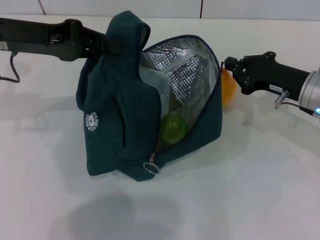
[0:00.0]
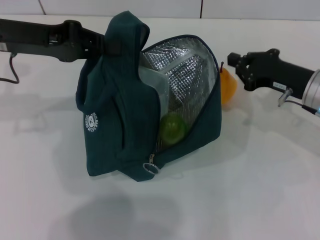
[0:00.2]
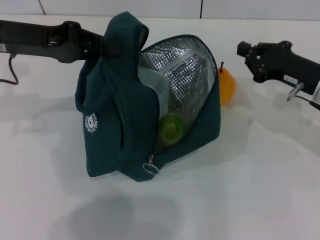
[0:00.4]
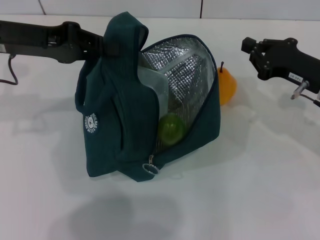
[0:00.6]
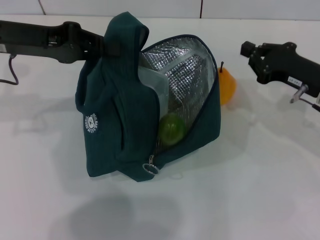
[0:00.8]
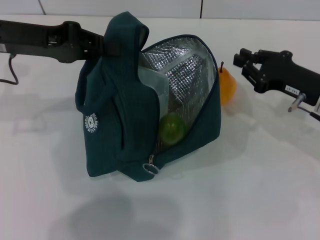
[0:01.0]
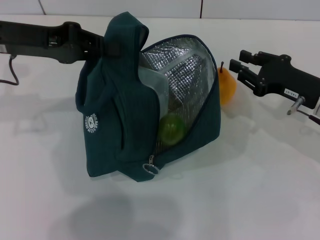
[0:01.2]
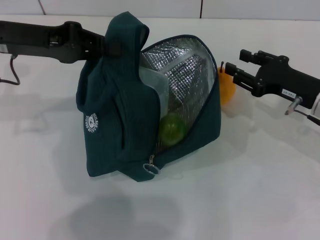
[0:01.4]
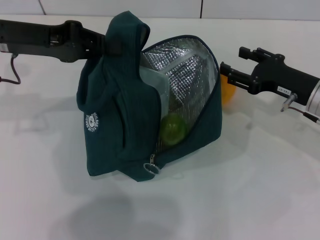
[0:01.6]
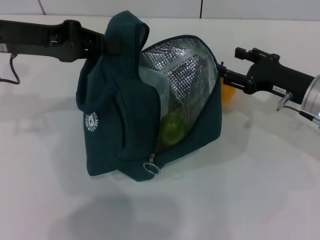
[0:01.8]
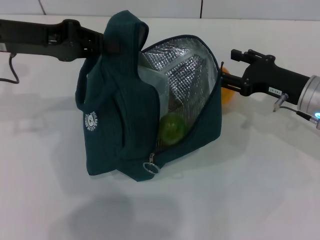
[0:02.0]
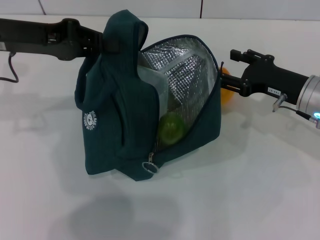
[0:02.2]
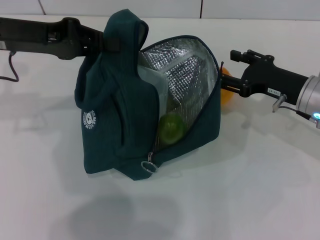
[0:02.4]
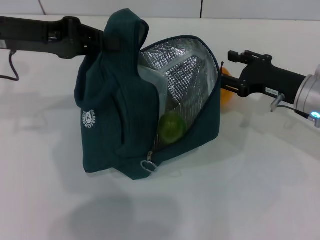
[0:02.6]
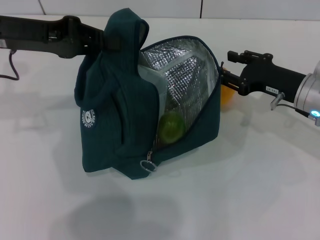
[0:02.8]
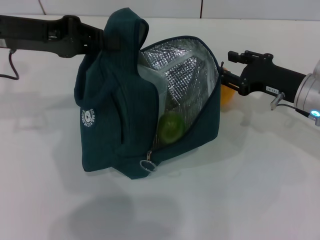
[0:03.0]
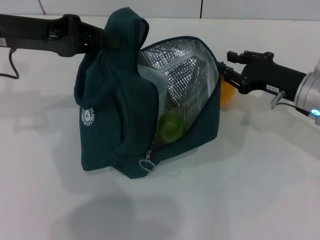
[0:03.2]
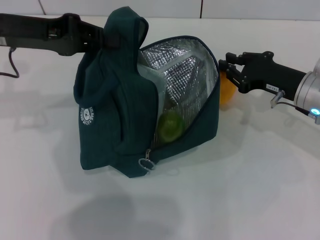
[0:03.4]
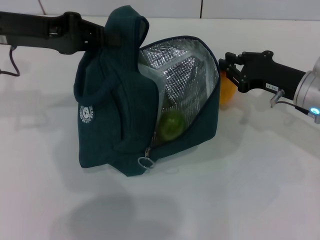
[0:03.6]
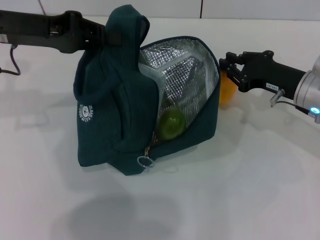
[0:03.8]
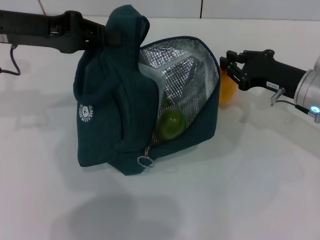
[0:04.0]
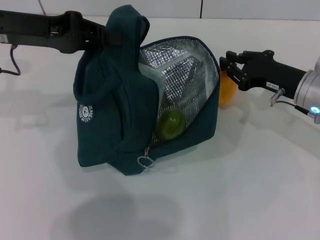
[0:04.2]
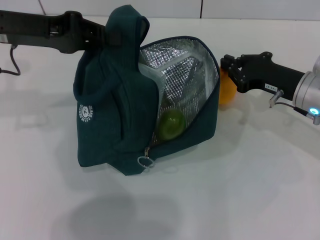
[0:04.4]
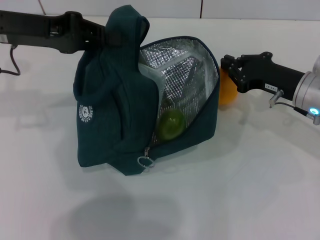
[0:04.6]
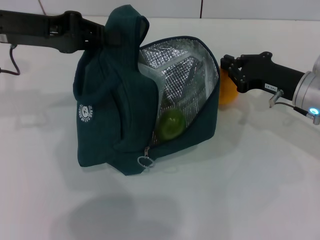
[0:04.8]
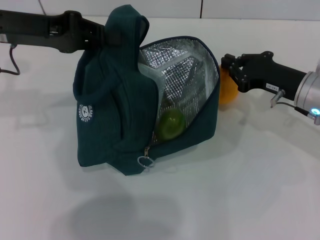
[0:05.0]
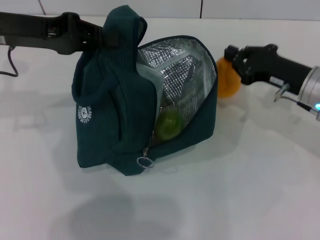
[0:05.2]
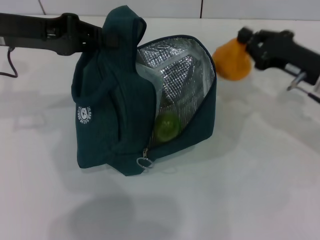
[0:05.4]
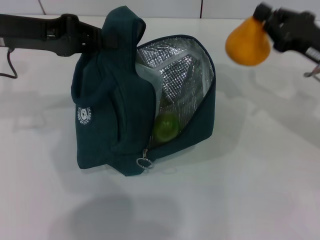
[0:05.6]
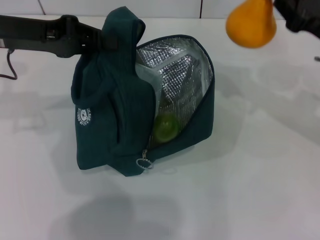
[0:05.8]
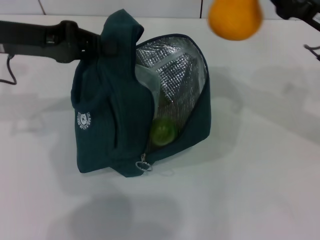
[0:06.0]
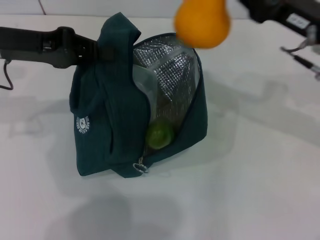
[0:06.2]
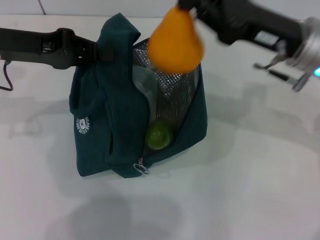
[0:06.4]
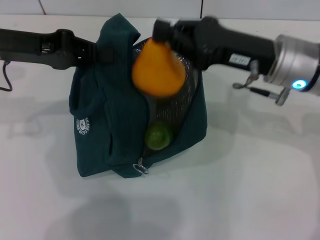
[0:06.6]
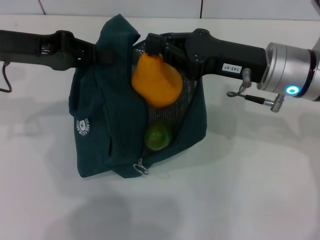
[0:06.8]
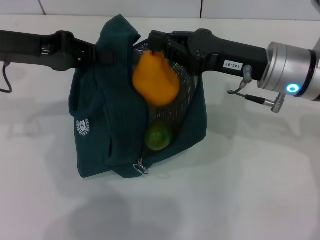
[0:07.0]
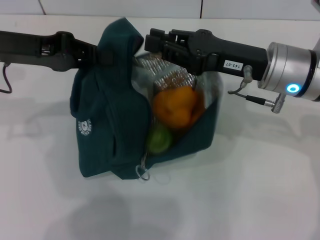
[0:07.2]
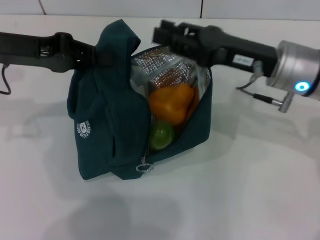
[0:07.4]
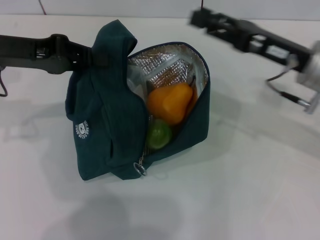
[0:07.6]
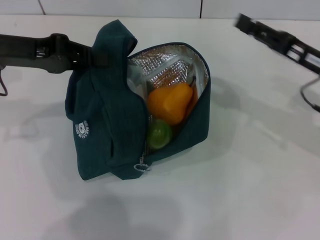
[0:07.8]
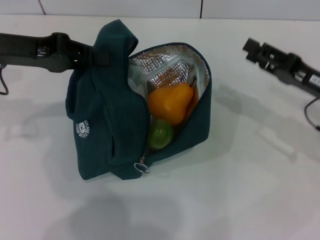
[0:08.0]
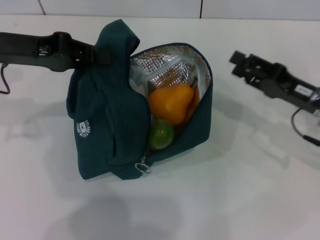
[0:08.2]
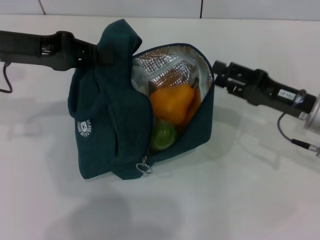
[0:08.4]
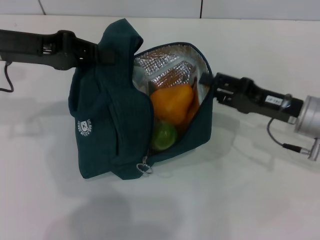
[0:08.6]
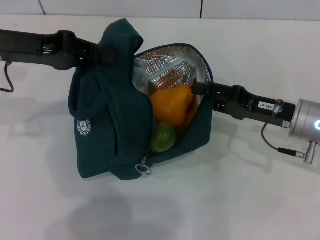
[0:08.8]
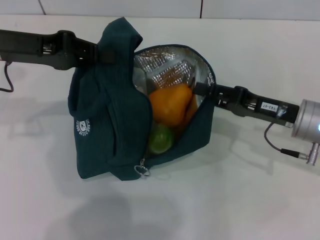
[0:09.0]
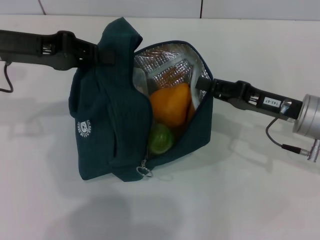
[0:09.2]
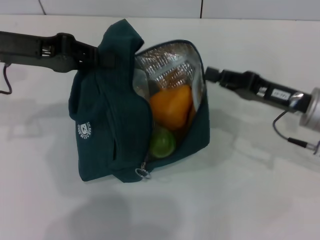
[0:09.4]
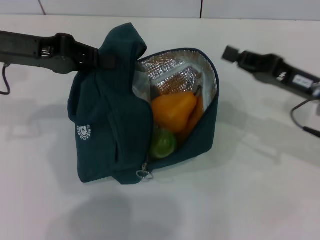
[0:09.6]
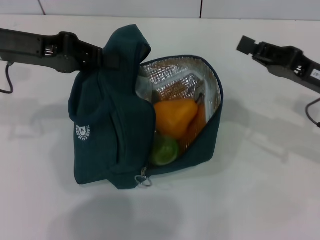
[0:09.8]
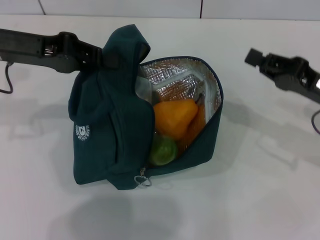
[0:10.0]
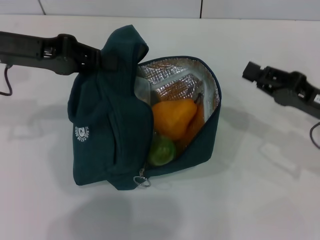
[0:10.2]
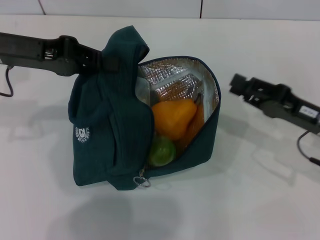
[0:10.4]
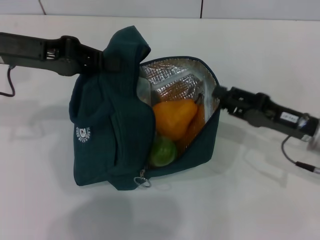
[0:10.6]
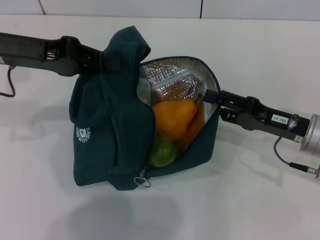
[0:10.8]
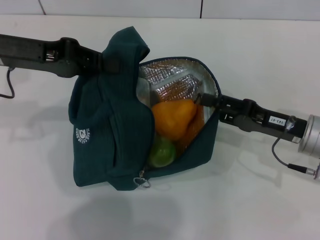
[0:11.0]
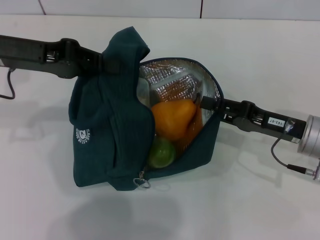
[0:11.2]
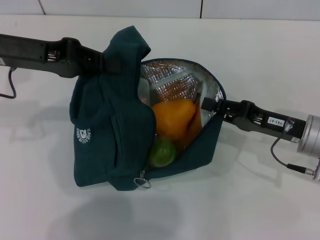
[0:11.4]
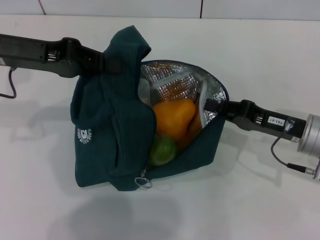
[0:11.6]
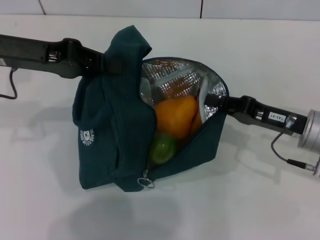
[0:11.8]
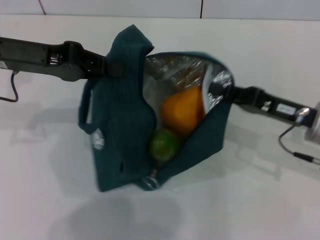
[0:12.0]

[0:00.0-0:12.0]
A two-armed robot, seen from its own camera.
Step, 0:00.0 to 0:04.8: Grab the pear with your right hand.
0:00.0 to 0:01.6: The right gripper opens.
0:01.6 to 0:03.0: There are only small adjustments of the grippers.
0:03.0 to 0:04.4: The right gripper closes.
0:04.4 to 0:06.0: The right gripper travels upward by approximately 10 cm.
0:06.0 to 0:07.6: The right gripper opens its fingers.
0:07.6 to 0:09.0: The right gripper shifts about 5 cm downward.
0:09.0 to 0:10.4: The right gripper closes up.
0:10.4 to 0:12.0: The right gripper opens, then closes once more.

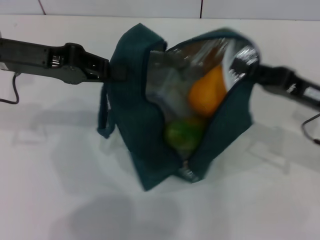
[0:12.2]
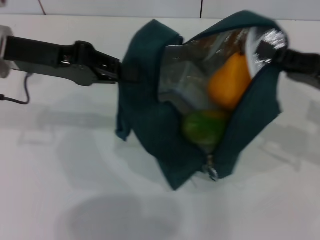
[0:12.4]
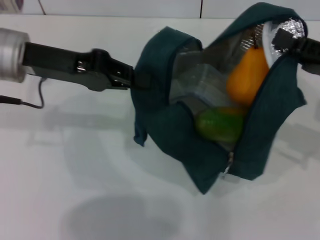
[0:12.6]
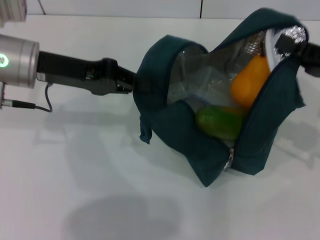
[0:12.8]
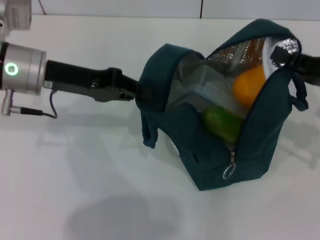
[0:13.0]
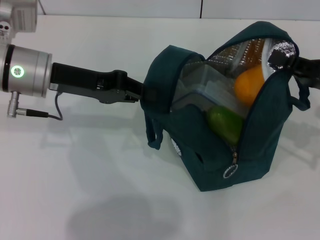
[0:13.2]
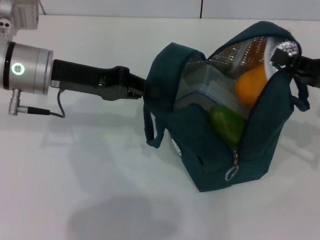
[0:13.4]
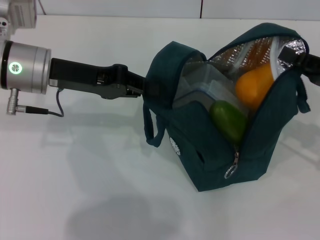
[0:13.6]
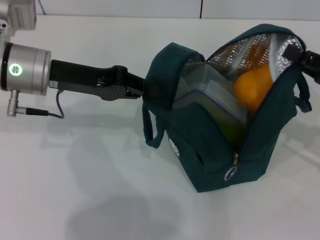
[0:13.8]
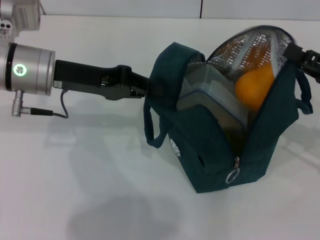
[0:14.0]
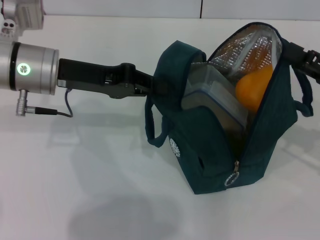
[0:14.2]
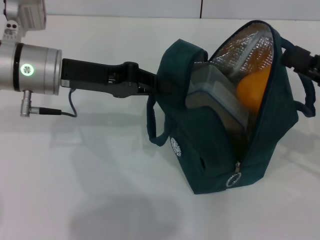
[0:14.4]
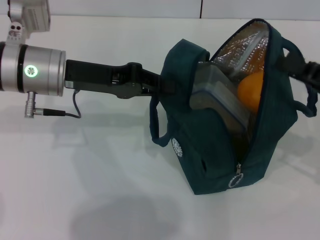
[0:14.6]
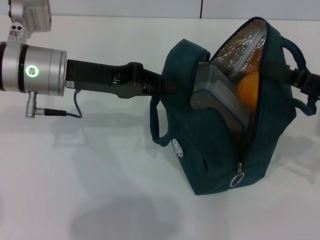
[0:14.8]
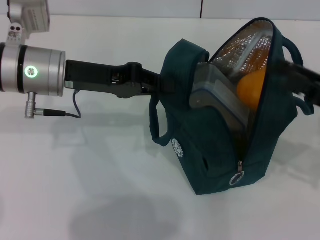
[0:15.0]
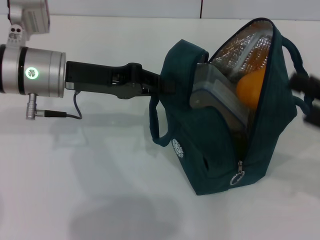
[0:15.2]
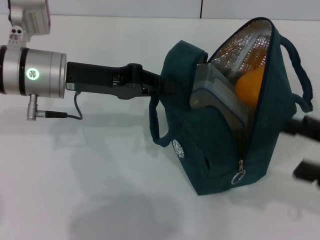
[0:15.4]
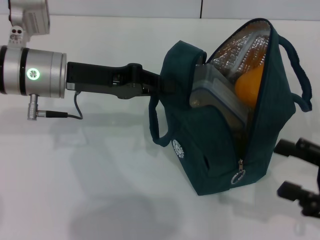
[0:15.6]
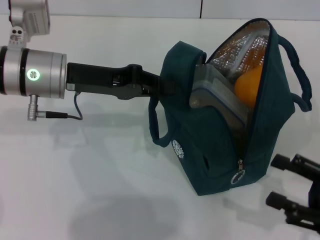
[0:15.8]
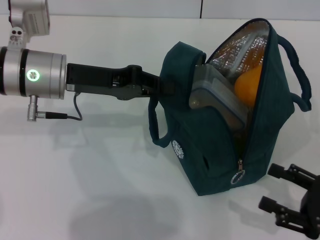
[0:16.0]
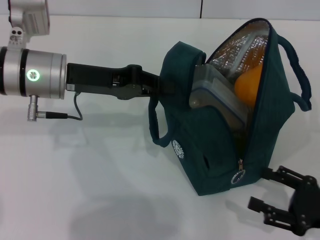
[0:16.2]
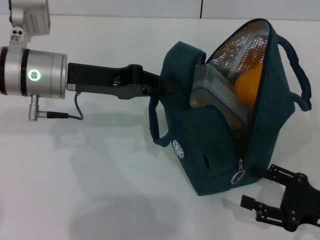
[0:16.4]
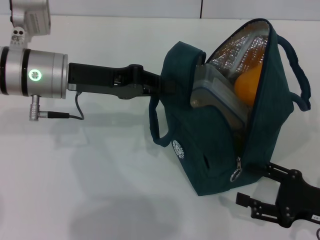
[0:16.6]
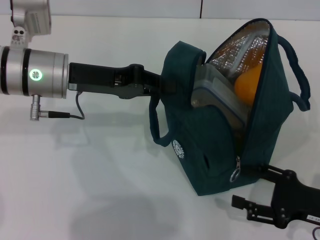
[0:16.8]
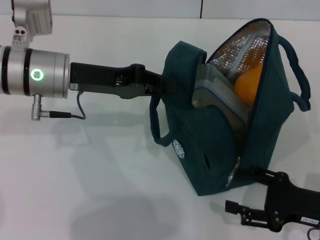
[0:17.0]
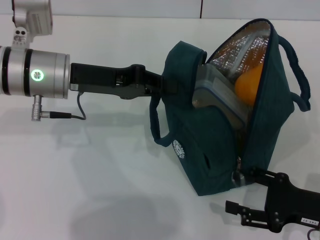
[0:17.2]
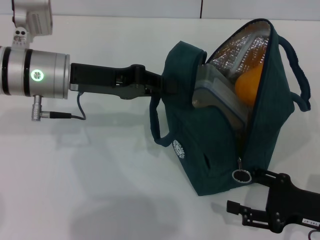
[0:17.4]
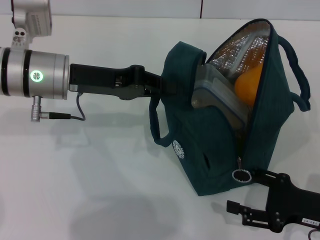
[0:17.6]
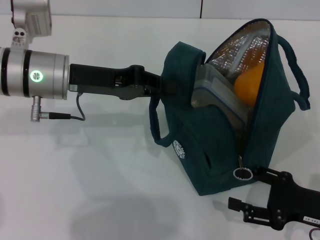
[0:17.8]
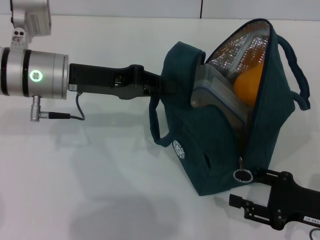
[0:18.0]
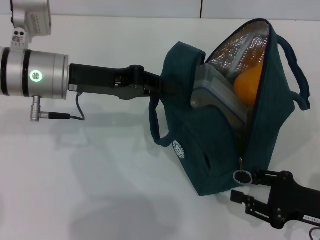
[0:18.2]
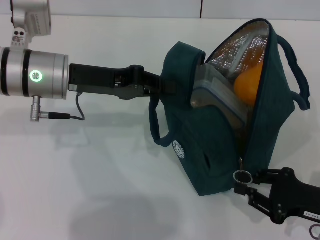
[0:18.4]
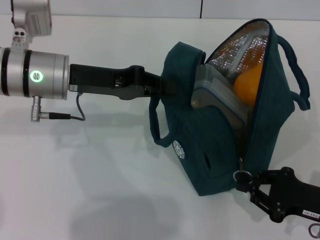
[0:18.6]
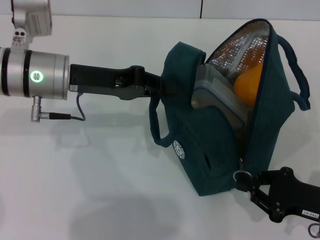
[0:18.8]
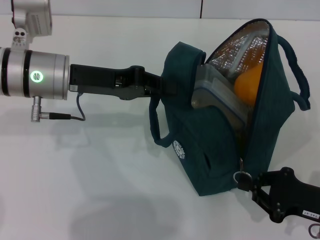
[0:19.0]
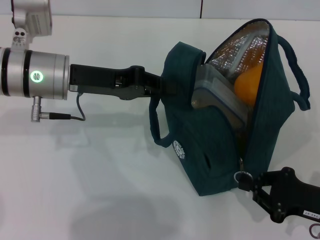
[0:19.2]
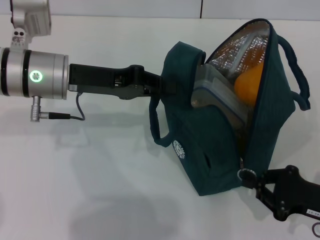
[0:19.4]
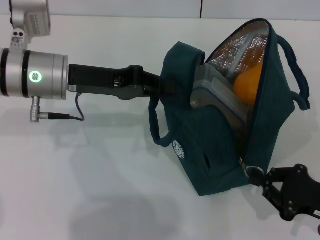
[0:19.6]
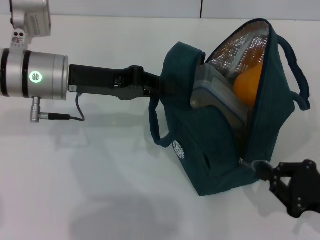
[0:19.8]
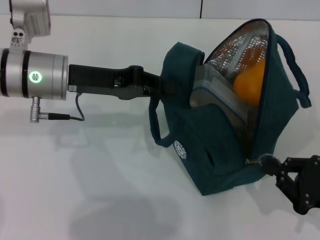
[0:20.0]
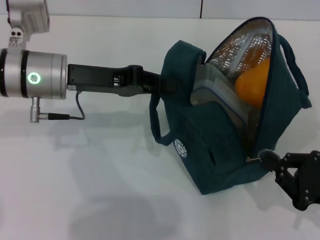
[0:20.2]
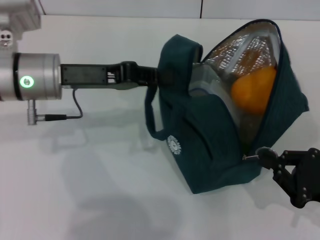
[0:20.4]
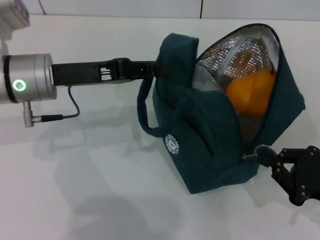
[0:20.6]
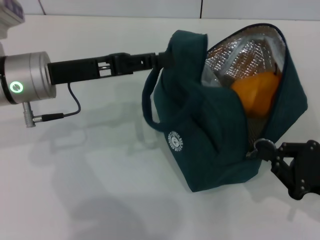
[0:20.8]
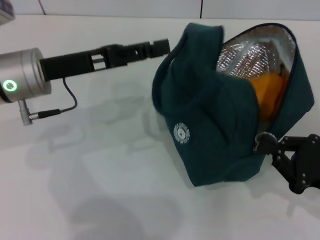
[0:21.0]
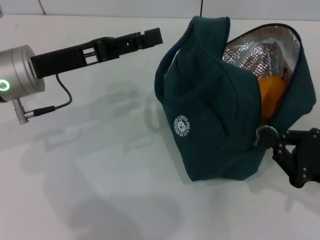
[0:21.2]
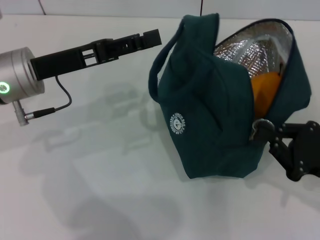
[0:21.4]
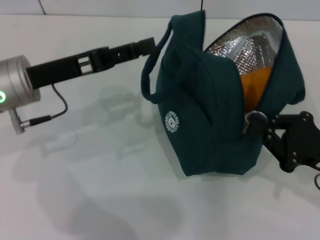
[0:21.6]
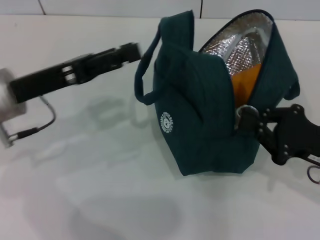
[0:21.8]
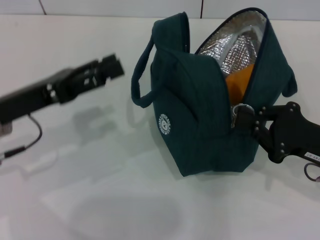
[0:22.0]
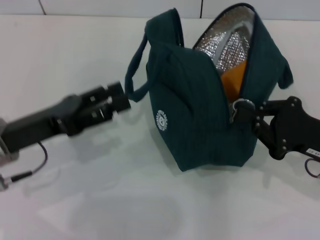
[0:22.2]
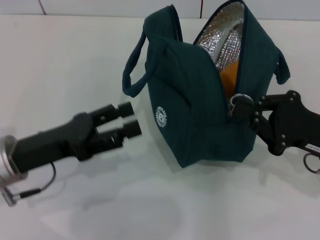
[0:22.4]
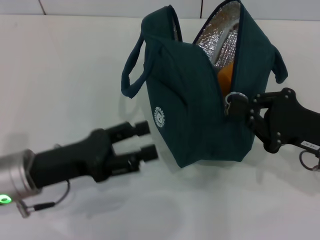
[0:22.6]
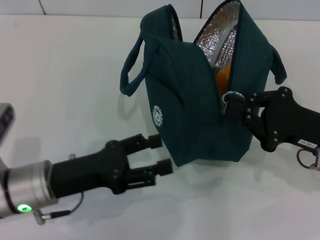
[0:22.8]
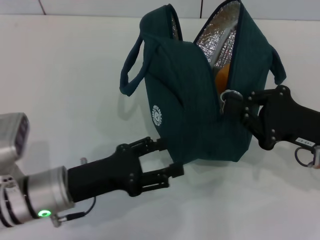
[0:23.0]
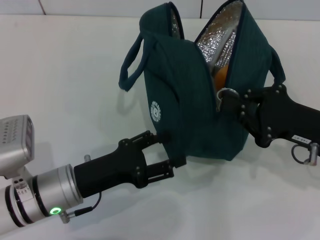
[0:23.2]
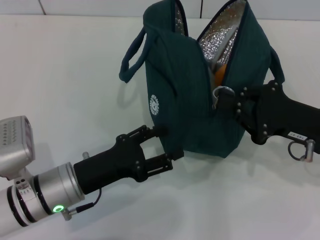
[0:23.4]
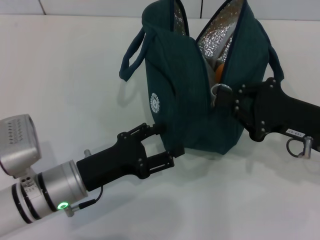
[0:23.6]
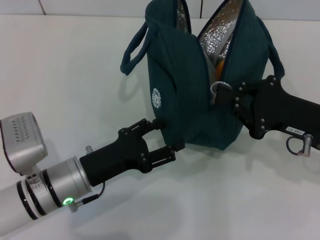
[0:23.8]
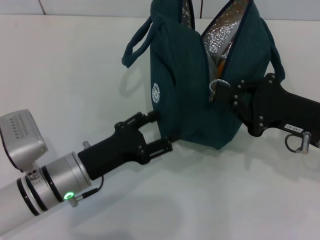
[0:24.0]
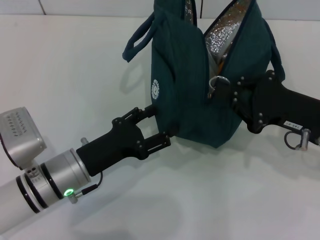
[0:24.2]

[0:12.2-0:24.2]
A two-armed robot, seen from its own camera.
Step, 0:14.4 to 0:22.0: Hold the lunch bag with your left hand.
0:12.2 to 0:13.8: The right gripper goes some 5 cm to the right; the left gripper moves approximately 5 cm.
0:13.8 to 0:15.2: The right gripper is displaced backward by approximately 5 cm, and opens its fingers.
0:15.2 to 0:16.6: The right gripper goes about 10 cm downward.
0:16.6 to 0:18.2: There are only small adjustments of the grippers.
0:18.2 to 0:19.8: The right gripper closes up.
0:19.8 to 0:21.2: The left gripper opens its fingers.
0:21.2 to 0:22.6: The left gripper moves backward and downward, some 10 cm. Meanwhile the right gripper heads forward, covering approximately 5 cm.
0:22.6 to 0:24.2: The left gripper shifts approximately 5 cm downward.
